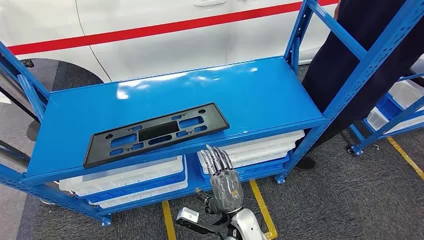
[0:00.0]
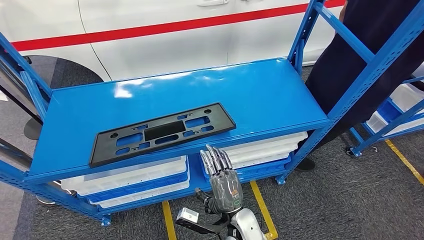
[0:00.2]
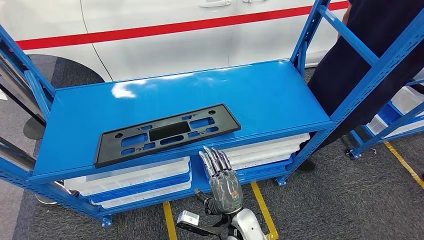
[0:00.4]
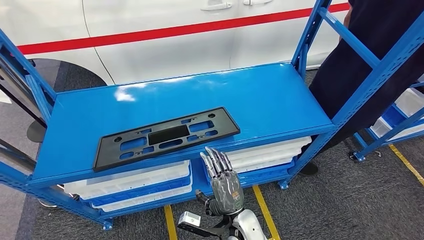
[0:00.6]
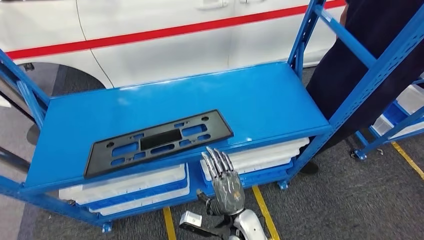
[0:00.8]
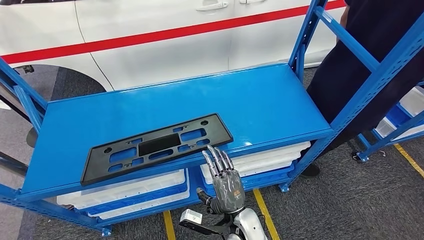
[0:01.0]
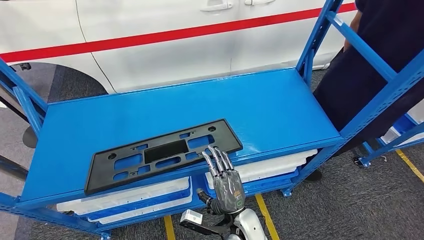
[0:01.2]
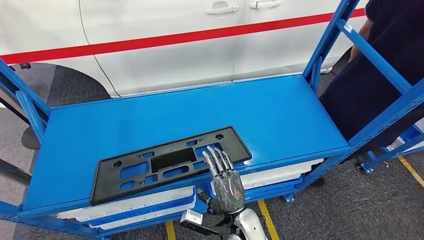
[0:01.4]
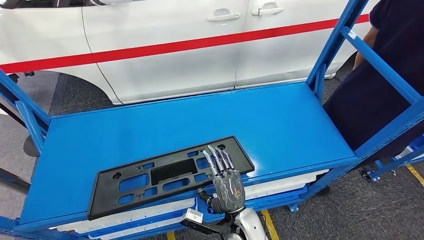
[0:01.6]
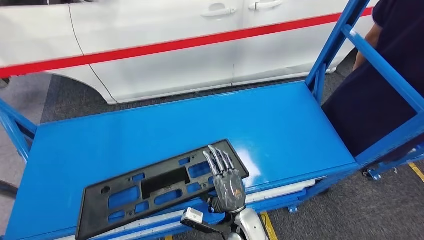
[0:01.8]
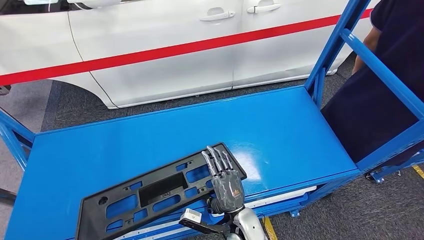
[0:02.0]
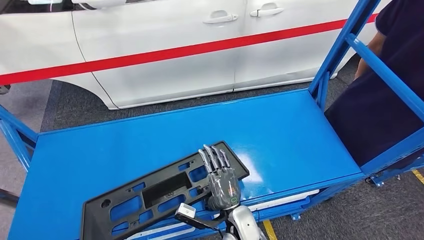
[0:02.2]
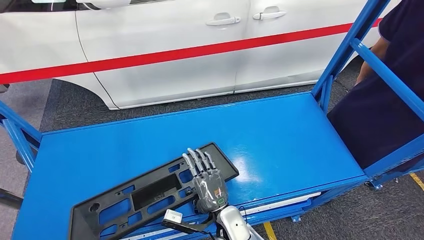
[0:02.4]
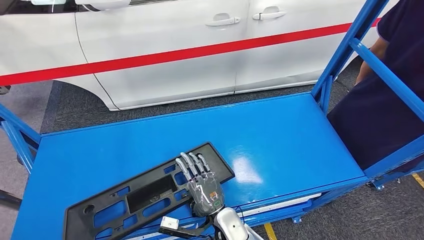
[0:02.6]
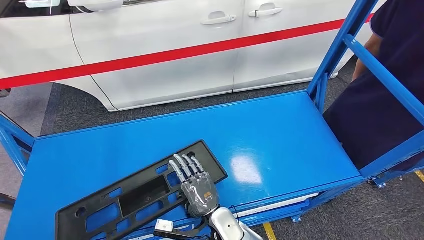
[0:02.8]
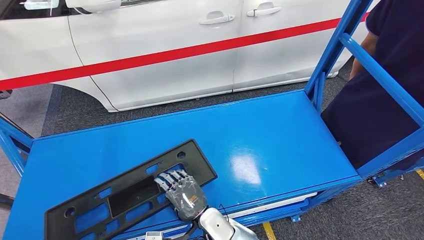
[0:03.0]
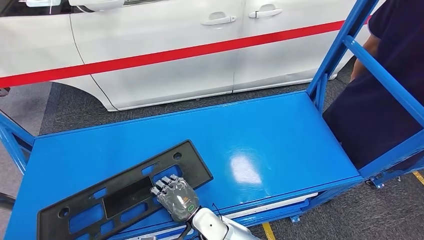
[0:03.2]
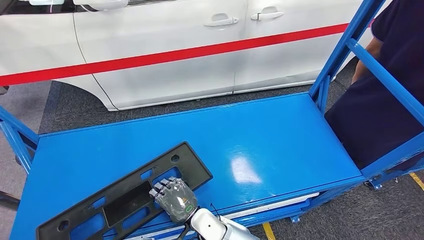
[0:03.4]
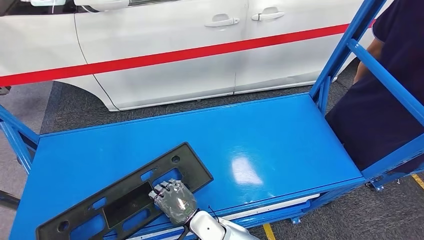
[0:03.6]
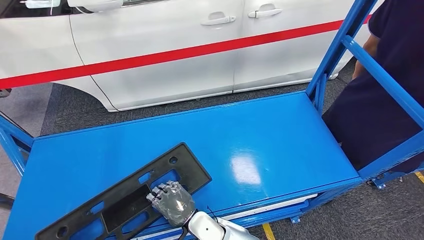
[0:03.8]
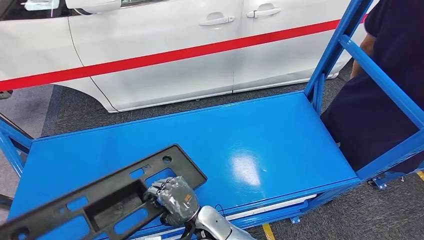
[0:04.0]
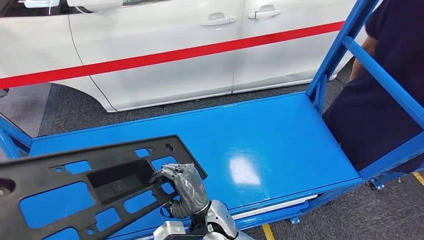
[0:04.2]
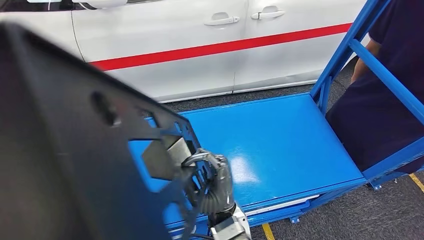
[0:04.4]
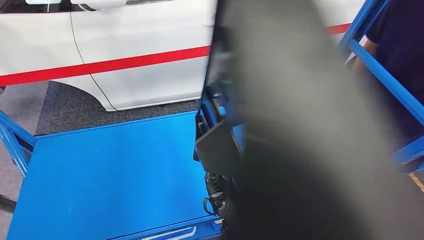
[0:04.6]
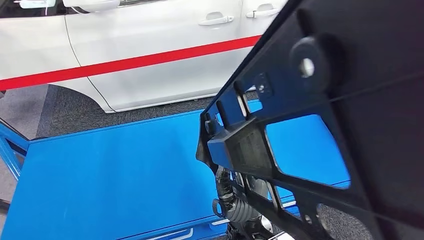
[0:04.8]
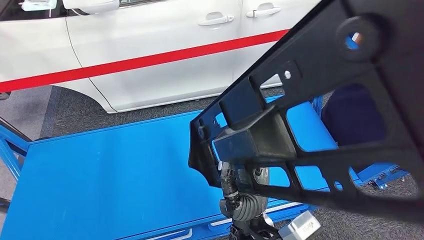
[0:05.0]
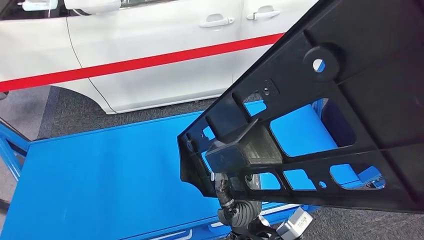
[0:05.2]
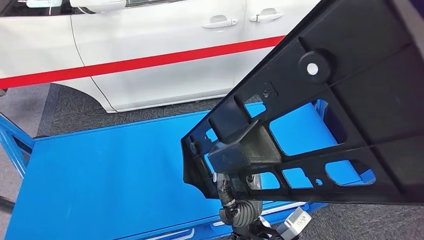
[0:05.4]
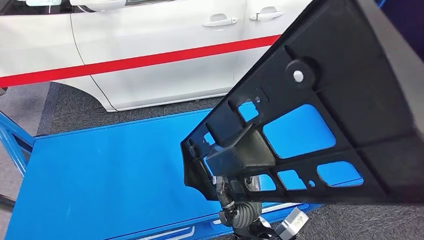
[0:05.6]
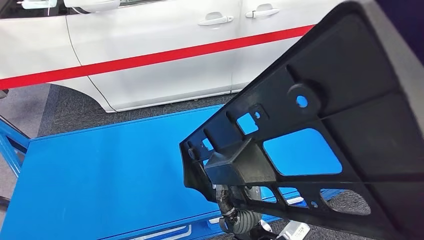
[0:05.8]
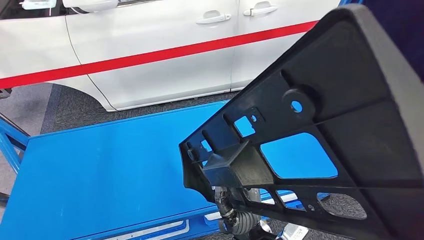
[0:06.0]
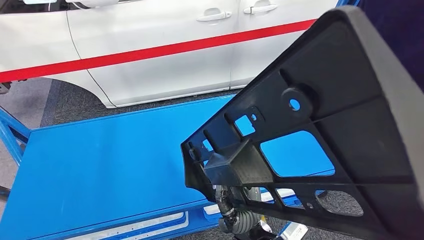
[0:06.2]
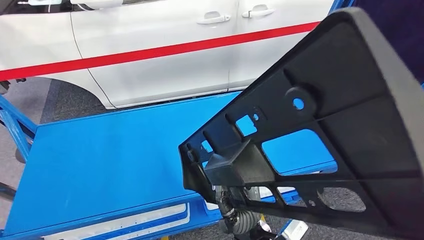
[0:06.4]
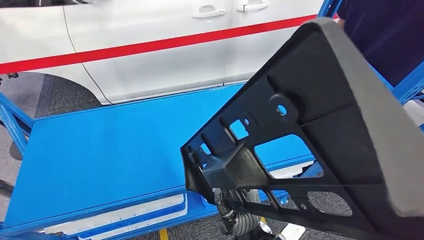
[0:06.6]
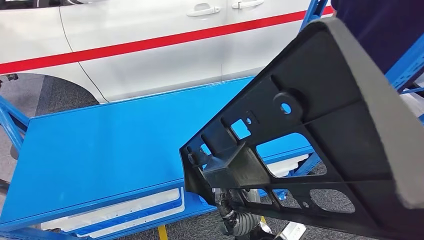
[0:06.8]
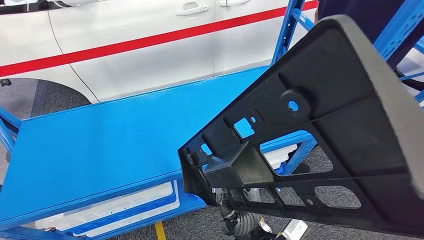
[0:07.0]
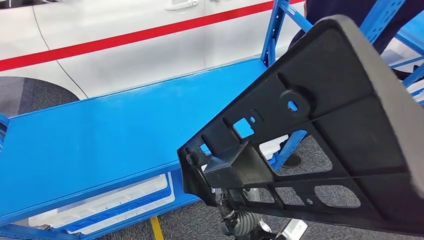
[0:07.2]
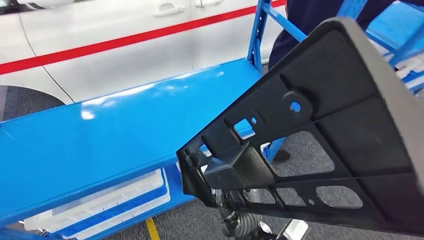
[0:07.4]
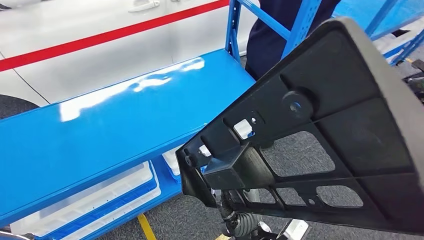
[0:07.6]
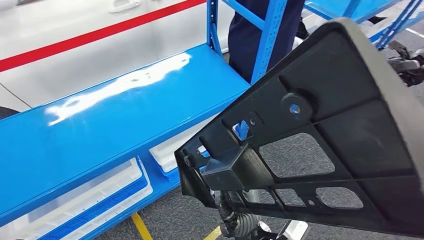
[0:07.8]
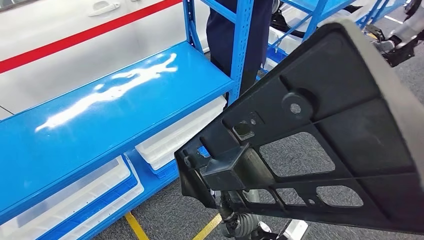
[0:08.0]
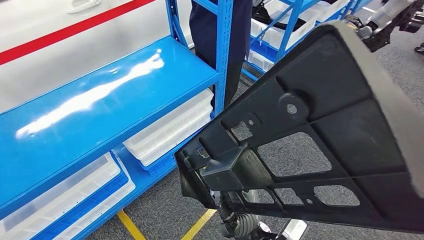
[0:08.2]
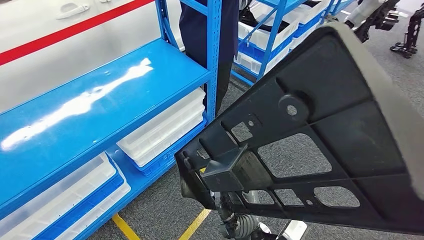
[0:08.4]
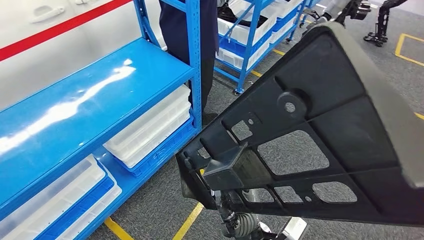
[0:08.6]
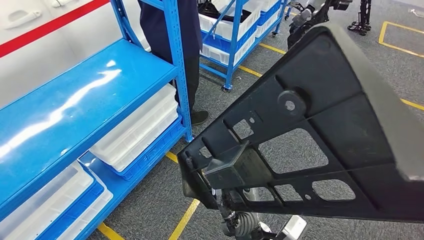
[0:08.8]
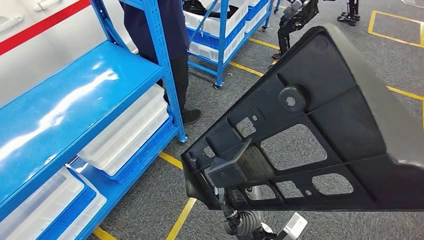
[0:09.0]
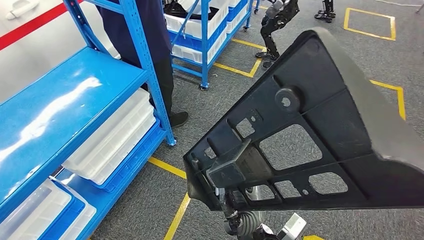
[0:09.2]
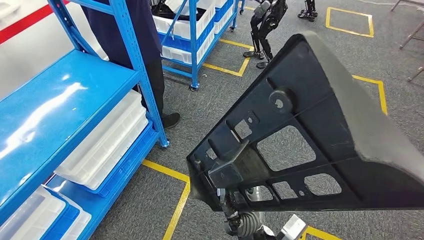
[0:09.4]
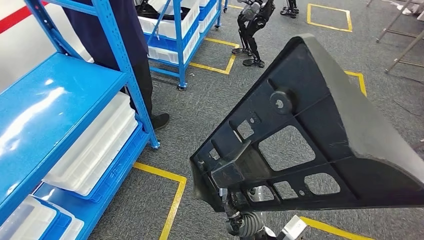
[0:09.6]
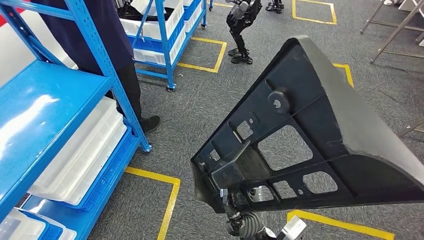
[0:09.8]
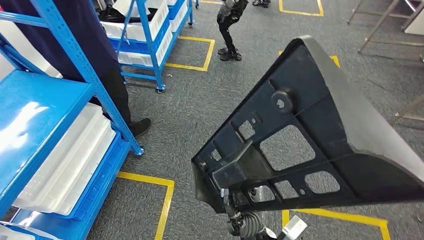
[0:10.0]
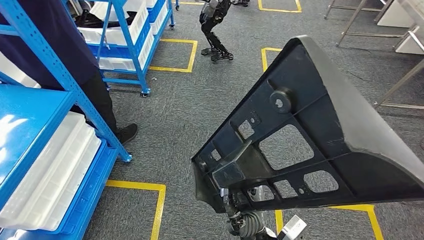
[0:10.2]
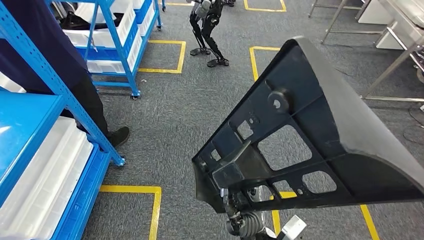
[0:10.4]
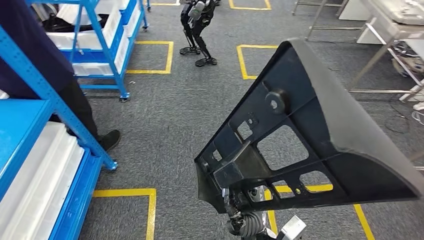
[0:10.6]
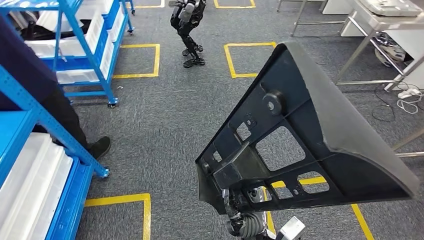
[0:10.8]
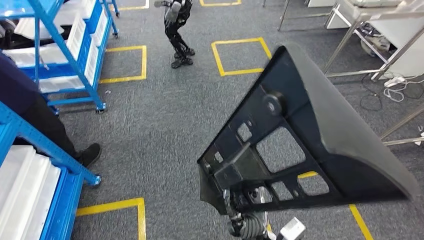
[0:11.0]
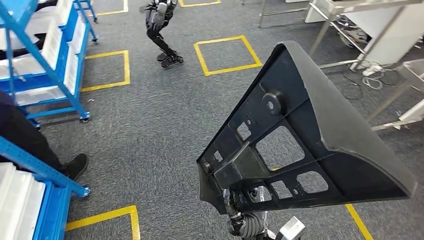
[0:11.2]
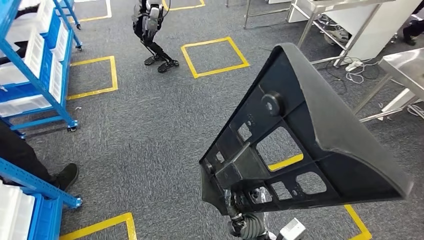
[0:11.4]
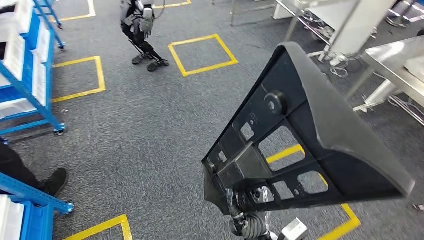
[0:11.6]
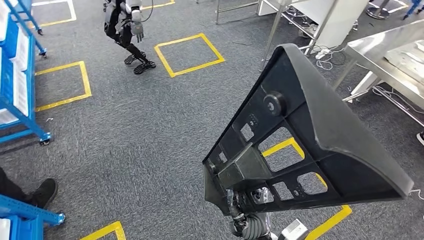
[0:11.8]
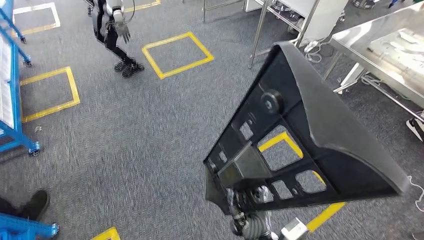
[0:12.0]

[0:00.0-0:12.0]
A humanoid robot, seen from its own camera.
Step, 0:00.0 to 0:06.8: Pick up the large material from the shelf.

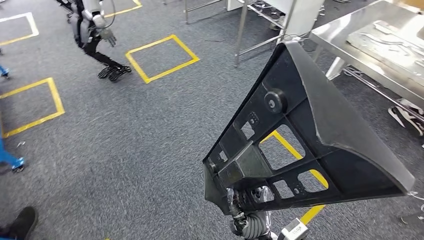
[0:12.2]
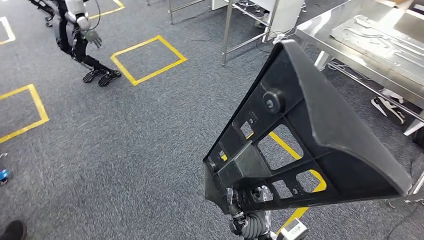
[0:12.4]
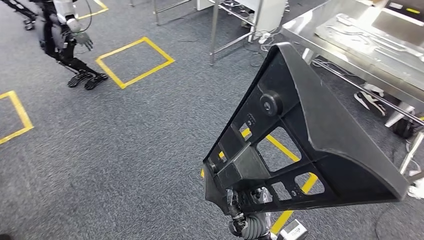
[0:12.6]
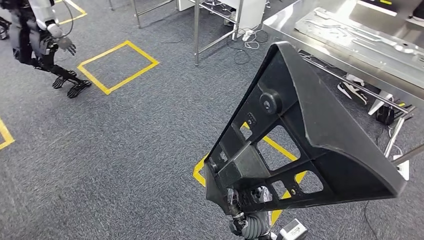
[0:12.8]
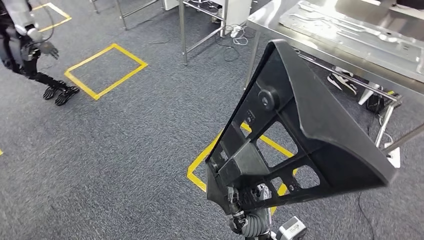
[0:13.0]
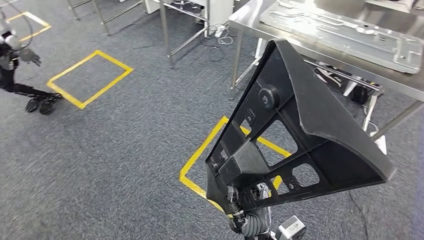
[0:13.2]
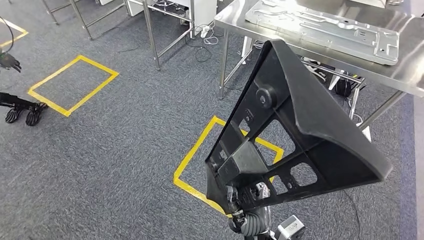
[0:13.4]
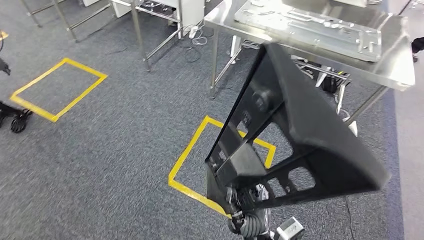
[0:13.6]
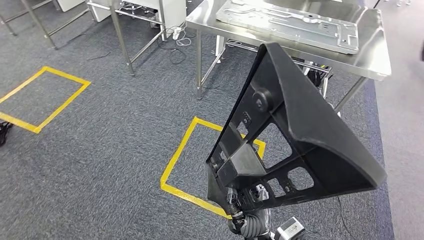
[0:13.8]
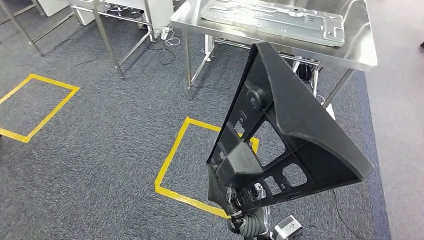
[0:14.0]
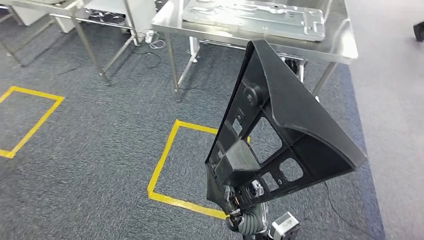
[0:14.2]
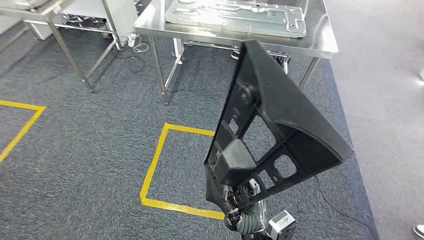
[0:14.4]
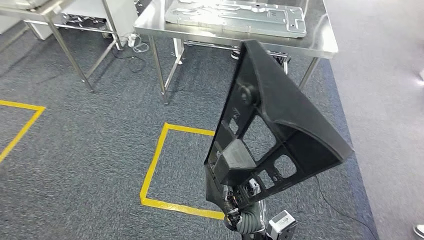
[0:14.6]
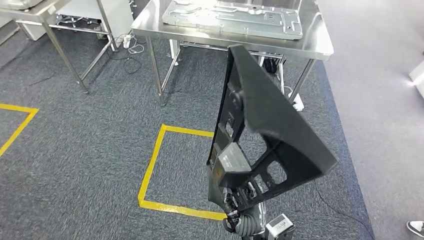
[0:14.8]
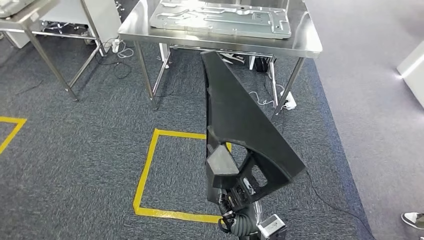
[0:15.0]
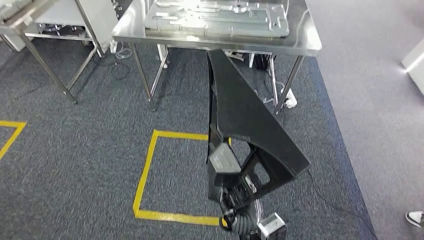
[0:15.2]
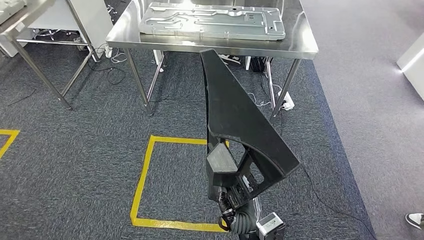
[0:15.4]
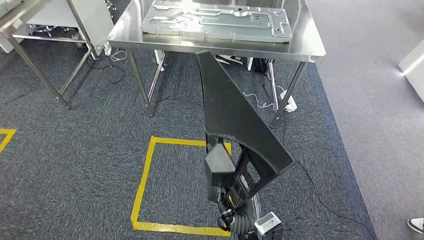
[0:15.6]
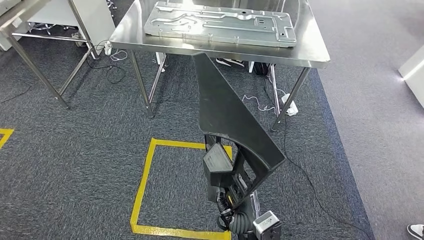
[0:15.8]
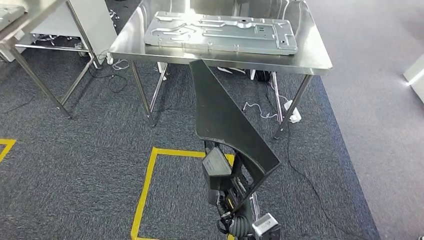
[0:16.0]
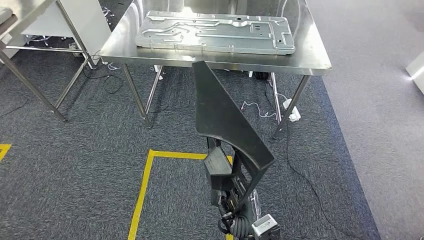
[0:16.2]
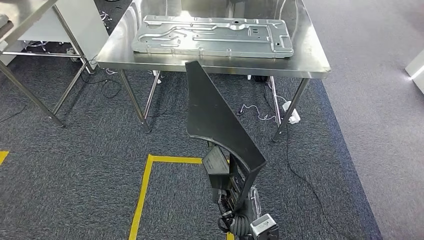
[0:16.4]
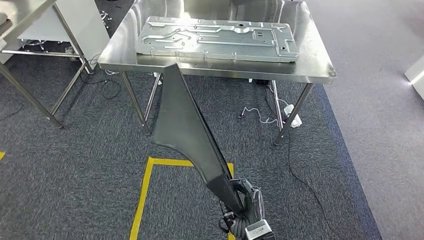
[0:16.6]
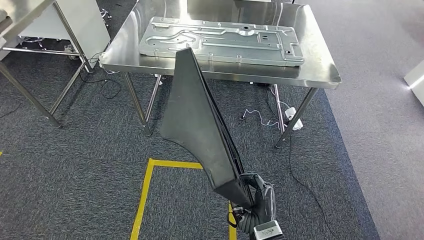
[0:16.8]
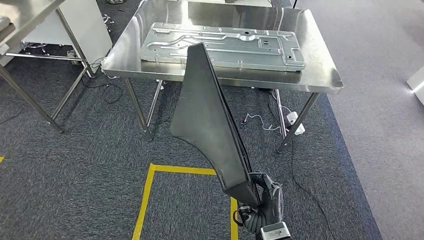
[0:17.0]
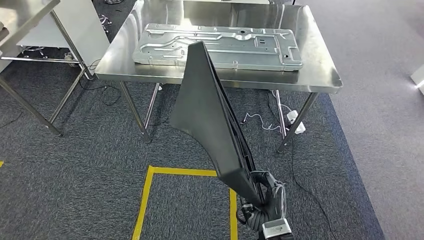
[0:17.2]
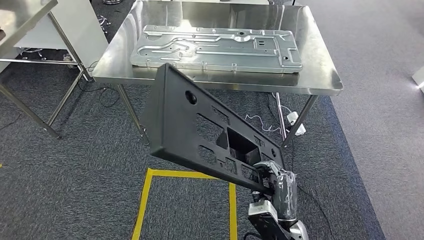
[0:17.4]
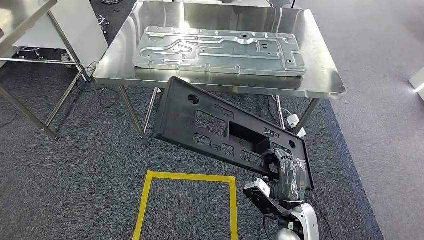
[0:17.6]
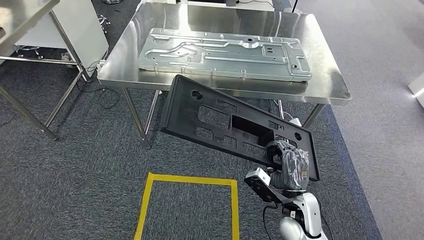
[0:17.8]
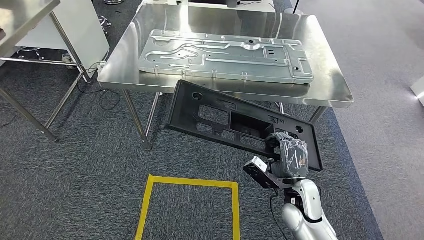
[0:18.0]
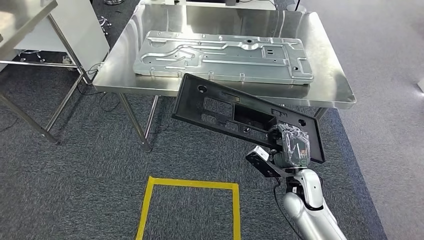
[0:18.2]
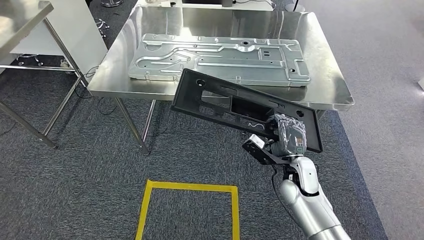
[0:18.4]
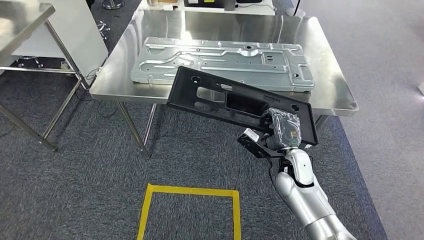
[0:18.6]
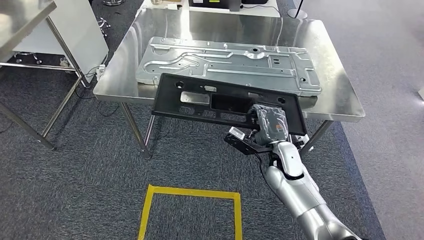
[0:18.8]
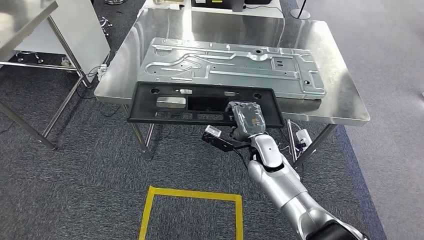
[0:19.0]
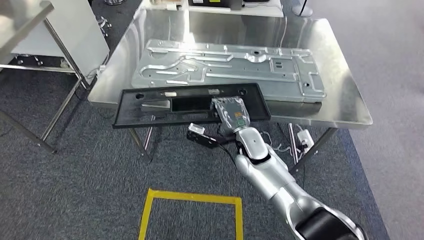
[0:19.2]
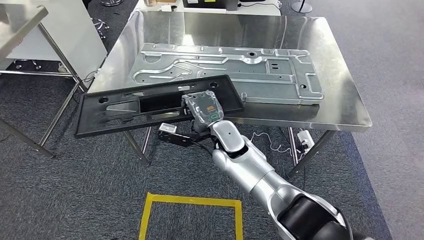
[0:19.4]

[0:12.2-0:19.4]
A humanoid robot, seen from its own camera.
Step, 0:12.2 to 0:17.6: Move the large material to the workbench.
